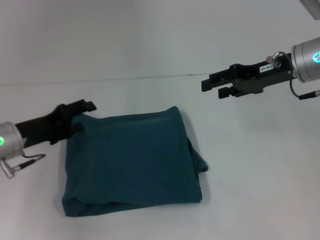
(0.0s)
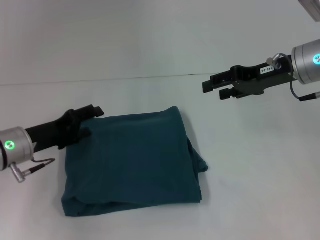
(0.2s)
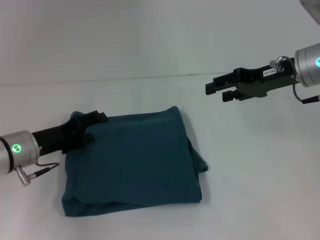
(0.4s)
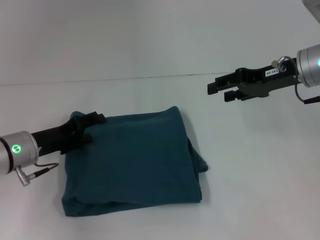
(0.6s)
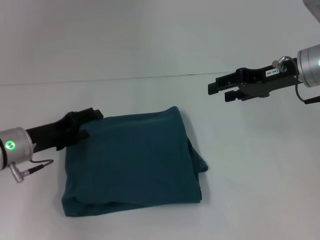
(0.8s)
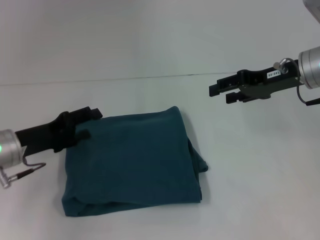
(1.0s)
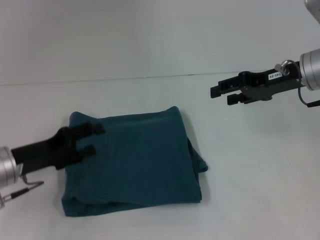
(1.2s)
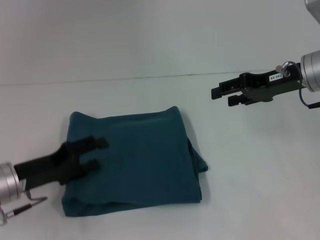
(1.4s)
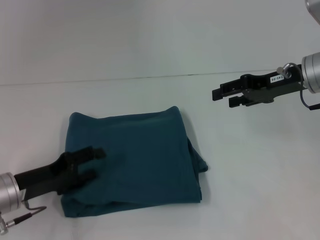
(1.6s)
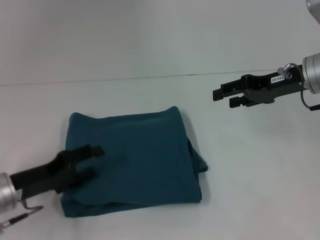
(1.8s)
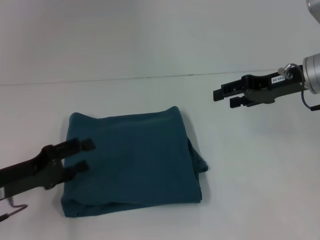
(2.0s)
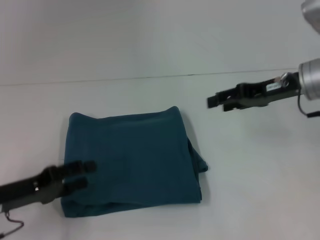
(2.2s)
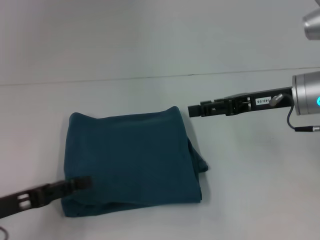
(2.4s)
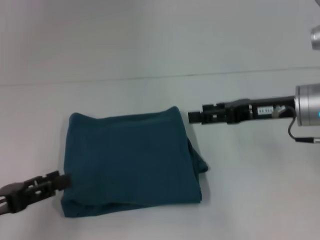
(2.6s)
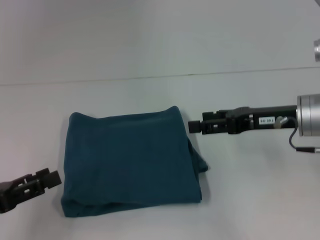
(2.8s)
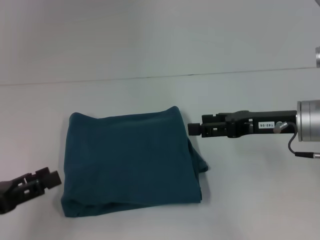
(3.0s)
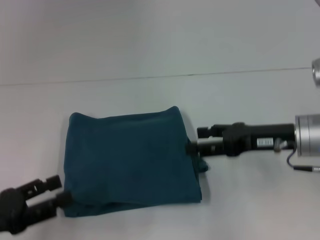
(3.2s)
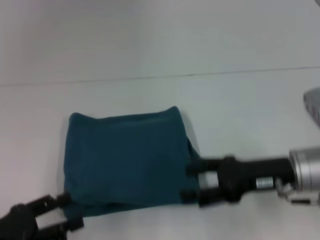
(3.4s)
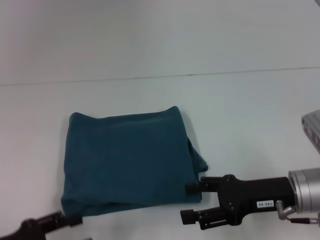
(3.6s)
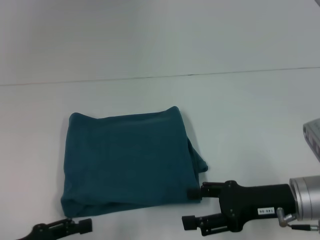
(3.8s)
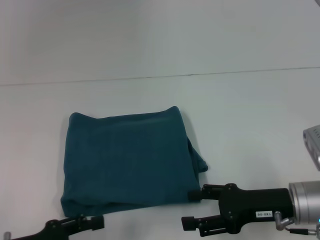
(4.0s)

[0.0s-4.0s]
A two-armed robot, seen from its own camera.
0.0s to 1.4s: The left gripper travels backward by approximately 5 cm.
1.4s to 2.6s: The right gripper is displaced backward by some 5 cm. The left gripper is displaced backward and to the left by roughly 10 cm.
2.6s to 4.0s: The right gripper is displaced backward and downward by roughly 15 cm; the left gripper ends up about 5 cm from where it was.

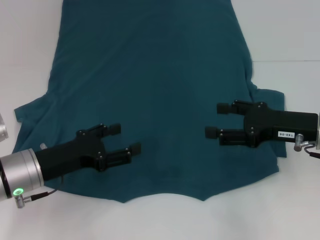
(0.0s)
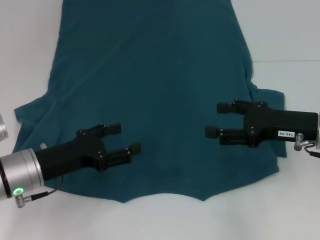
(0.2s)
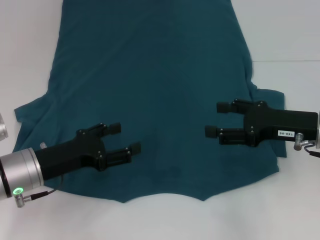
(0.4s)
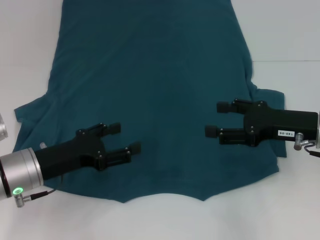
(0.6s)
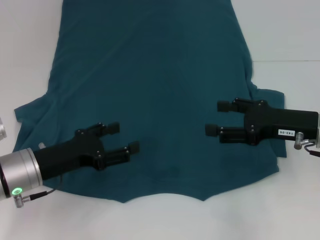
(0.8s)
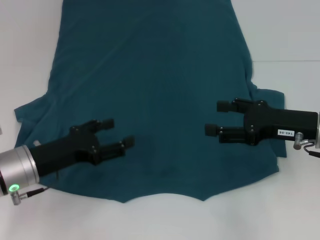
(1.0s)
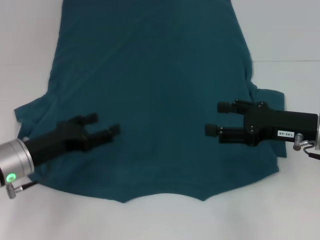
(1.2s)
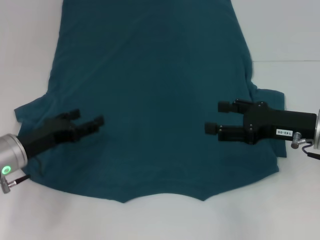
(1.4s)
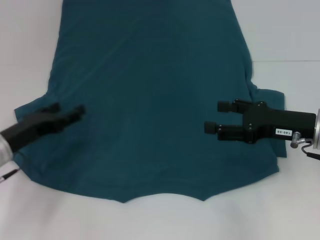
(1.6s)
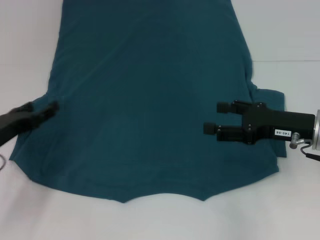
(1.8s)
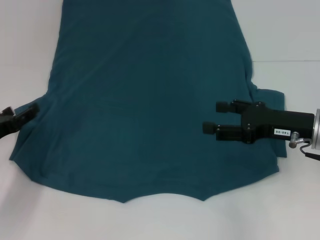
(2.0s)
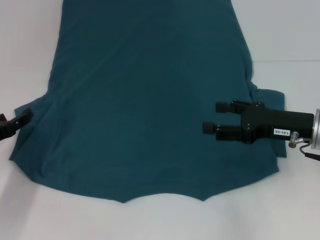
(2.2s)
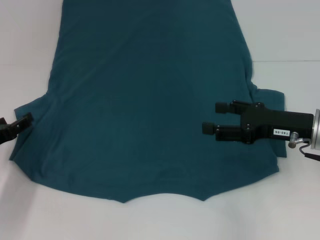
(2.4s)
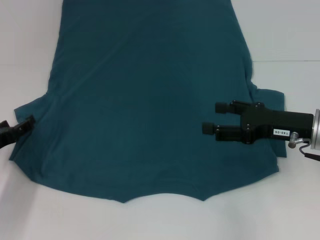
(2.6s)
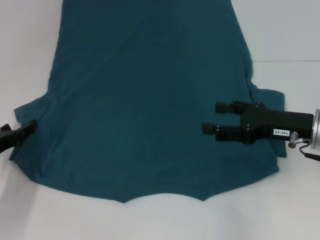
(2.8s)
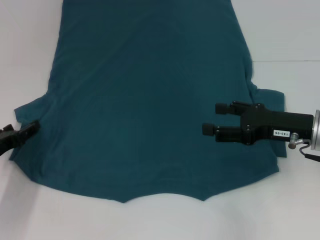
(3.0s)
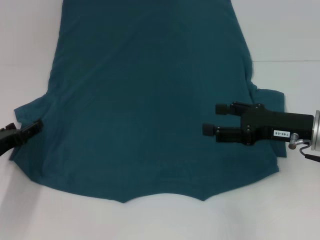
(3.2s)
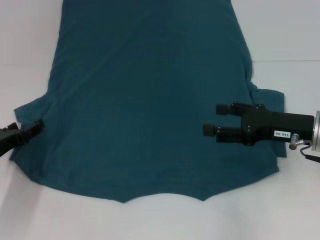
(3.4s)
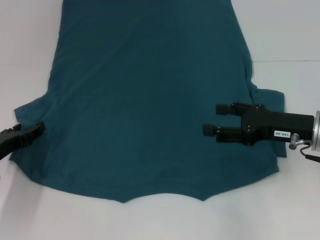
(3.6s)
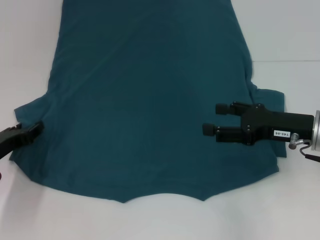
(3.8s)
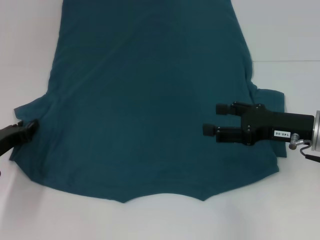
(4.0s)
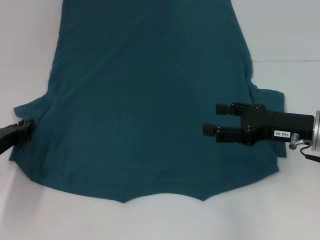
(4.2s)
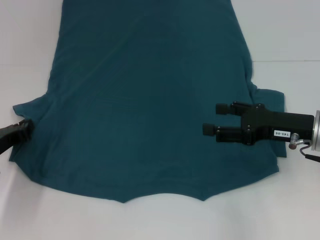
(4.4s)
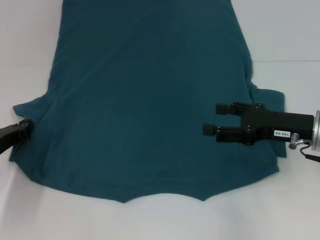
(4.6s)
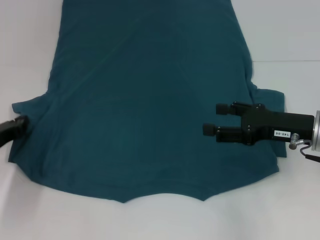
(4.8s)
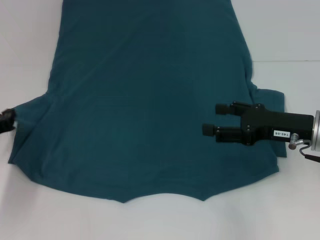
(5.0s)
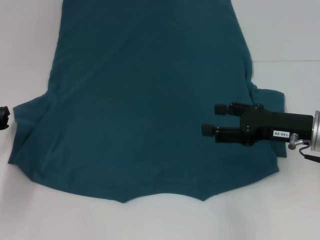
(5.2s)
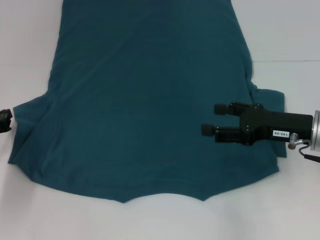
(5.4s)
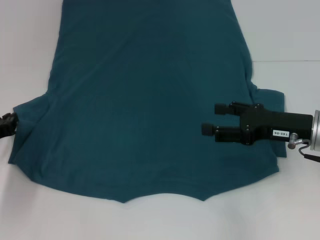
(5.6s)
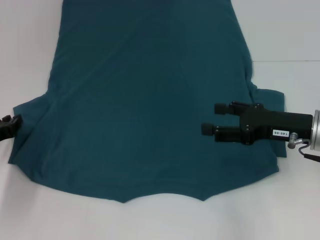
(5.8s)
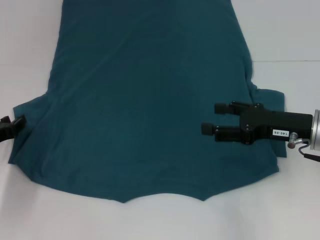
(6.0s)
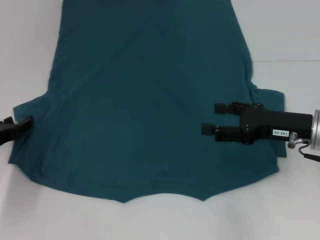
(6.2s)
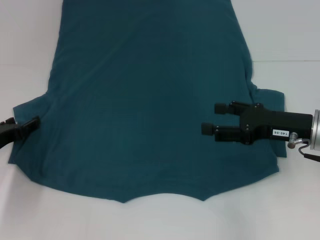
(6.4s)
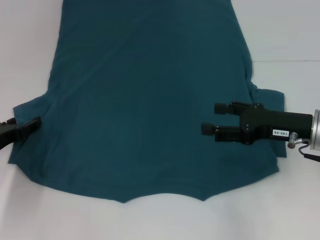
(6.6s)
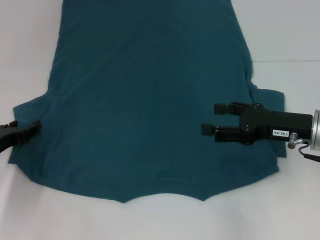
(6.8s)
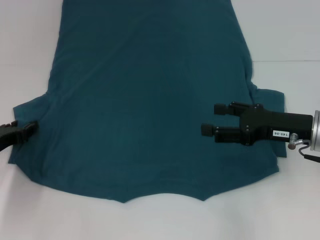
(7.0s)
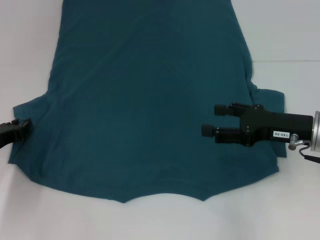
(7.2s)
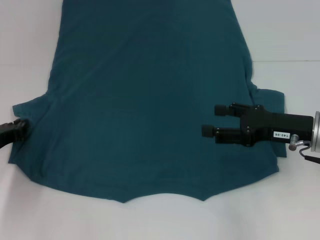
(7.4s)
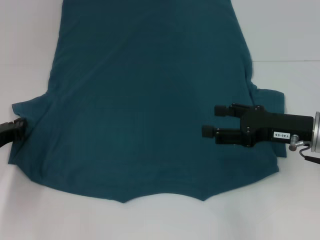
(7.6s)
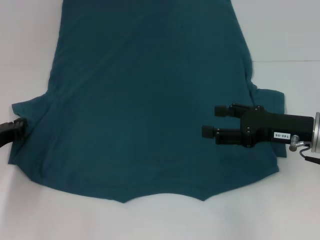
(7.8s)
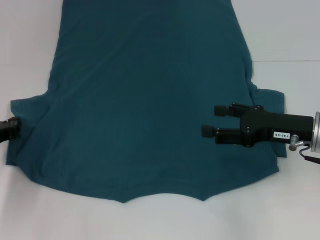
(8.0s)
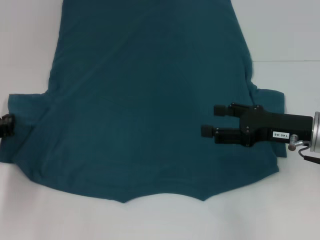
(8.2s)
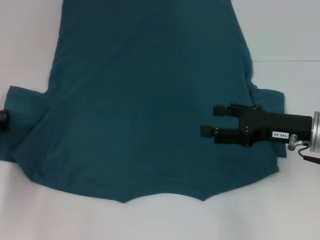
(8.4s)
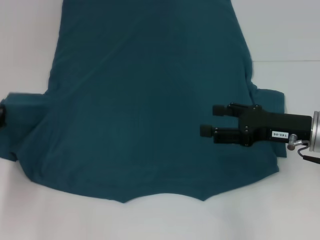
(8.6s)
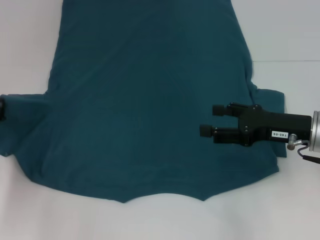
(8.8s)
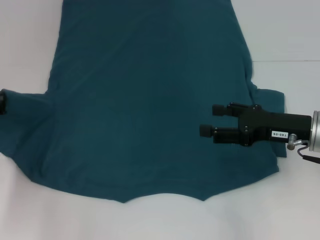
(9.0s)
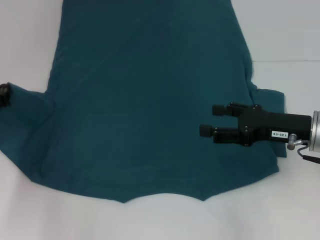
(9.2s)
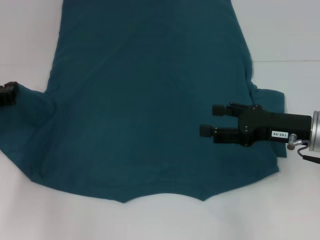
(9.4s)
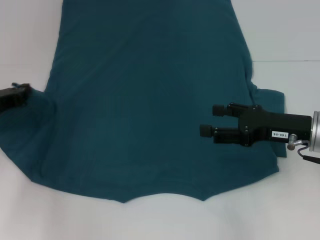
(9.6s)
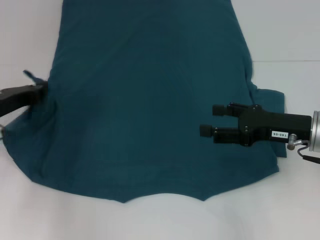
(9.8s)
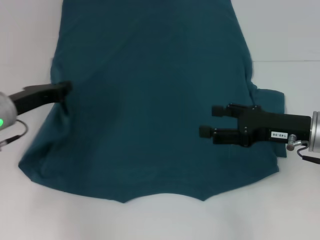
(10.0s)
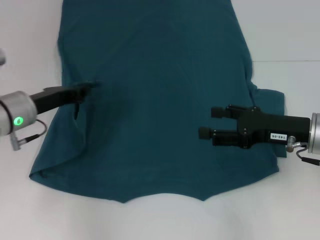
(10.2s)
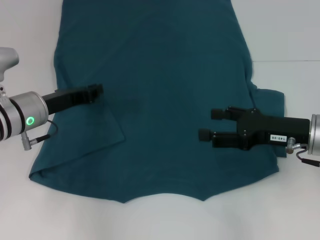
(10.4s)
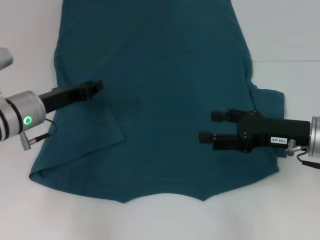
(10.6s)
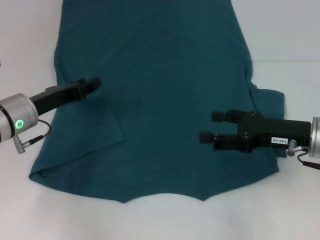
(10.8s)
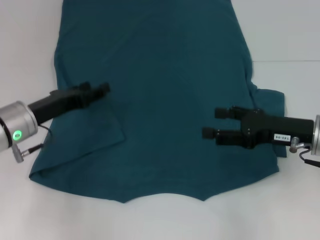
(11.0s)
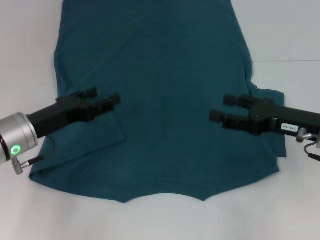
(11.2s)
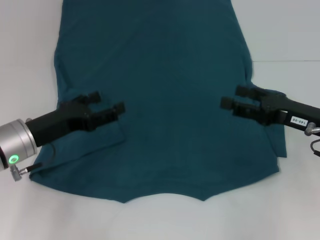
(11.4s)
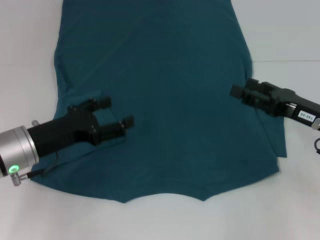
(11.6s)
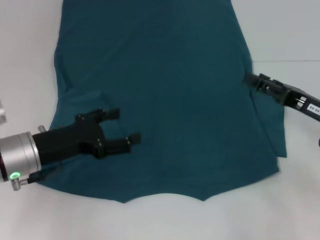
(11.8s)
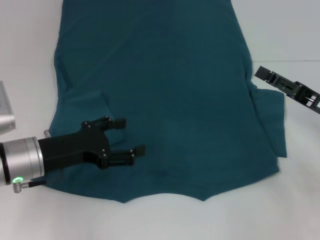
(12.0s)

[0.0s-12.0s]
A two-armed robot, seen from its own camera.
Step, 0.0s to 11.4s: Fold the bottom left sleeve with your left hand.
0.0s to 1.6s: The left gripper changes place by some 5 cm.
1.6s to 3.0s: The left gripper shifts by about 5 cm.
3.0s to 4.4s: The left gripper closes.
4.4s to 6.0s: The grippers make only small movements.
6.0s to 7.6s: The left gripper opens, then closes again.
7.6s to 9.0s: The grippers move only a little.
9.0s to 10.4s: The left gripper shifts about 10 cm to the right.
10.4s to 12.0s: The right gripper shifts roughly 5 cm to the right; the left gripper shifts roughly 10 cm backward, and opens up.

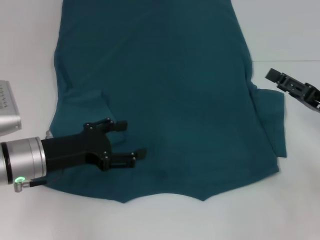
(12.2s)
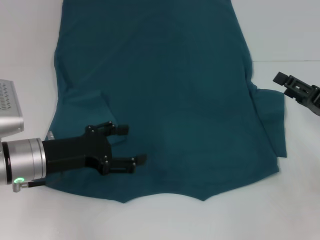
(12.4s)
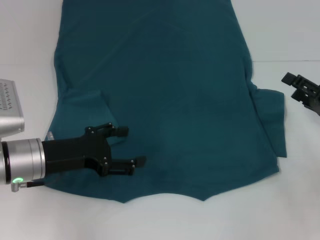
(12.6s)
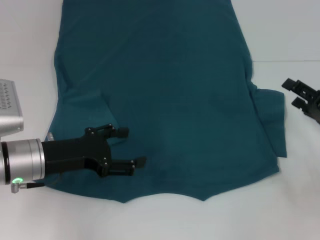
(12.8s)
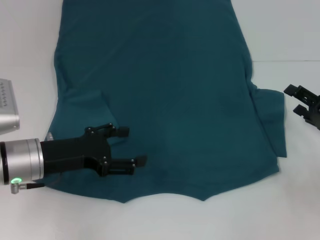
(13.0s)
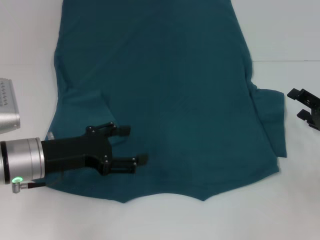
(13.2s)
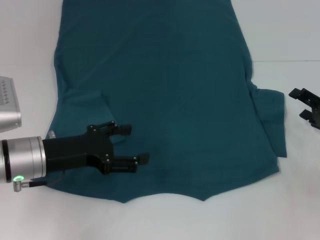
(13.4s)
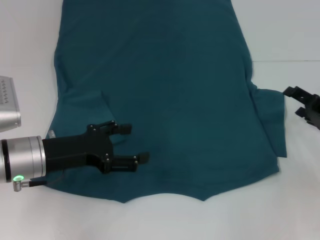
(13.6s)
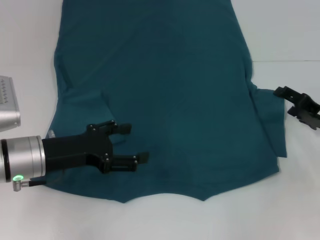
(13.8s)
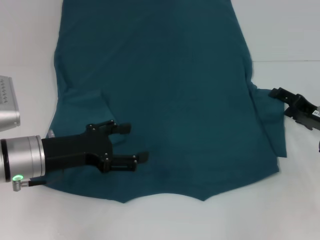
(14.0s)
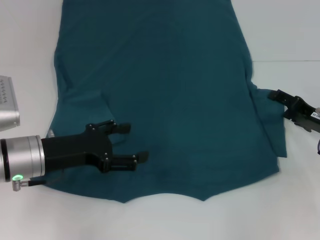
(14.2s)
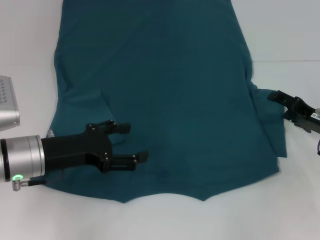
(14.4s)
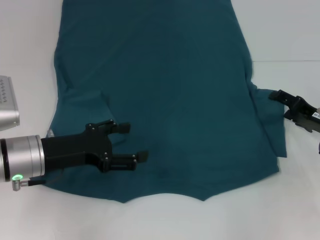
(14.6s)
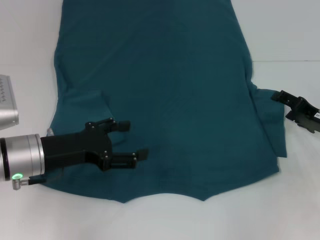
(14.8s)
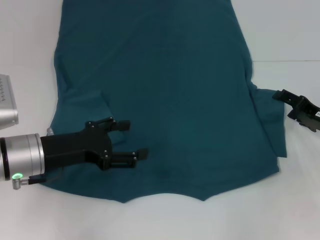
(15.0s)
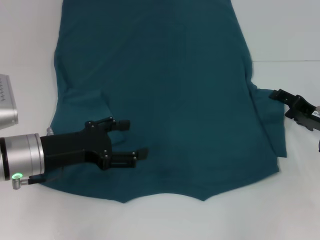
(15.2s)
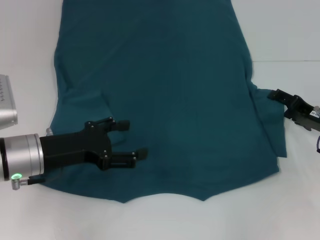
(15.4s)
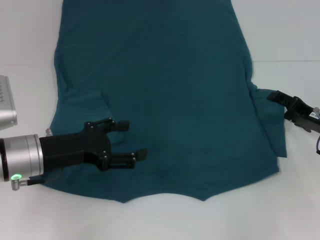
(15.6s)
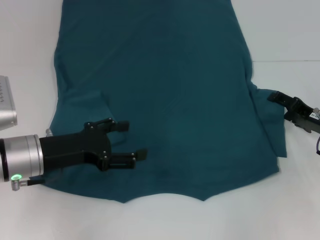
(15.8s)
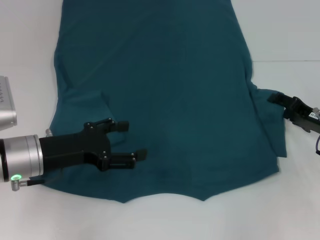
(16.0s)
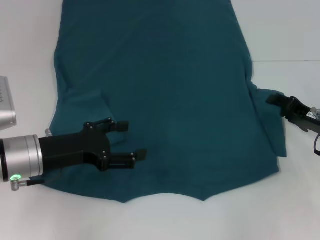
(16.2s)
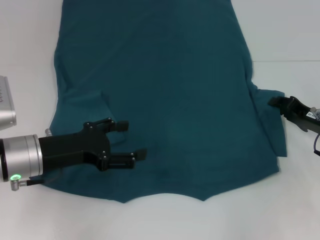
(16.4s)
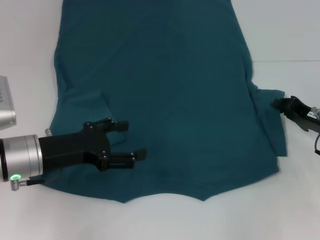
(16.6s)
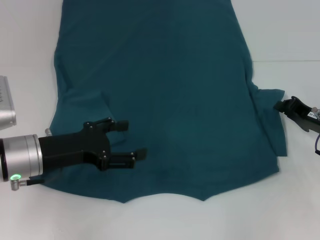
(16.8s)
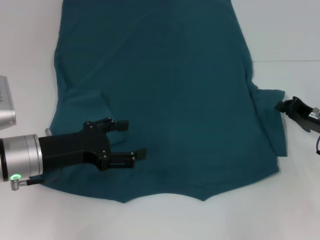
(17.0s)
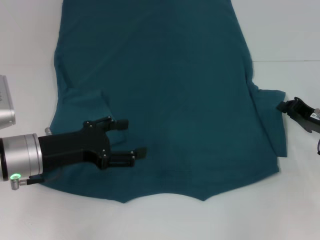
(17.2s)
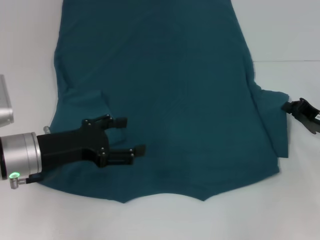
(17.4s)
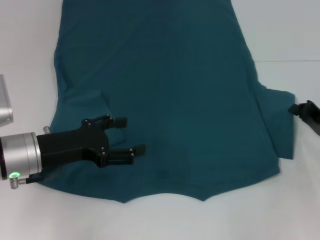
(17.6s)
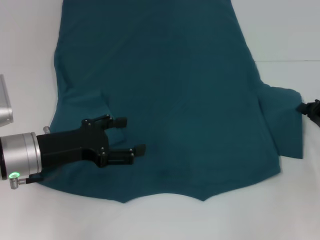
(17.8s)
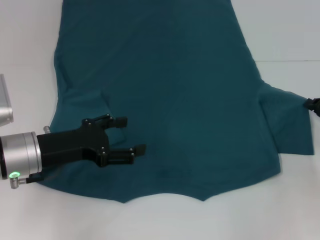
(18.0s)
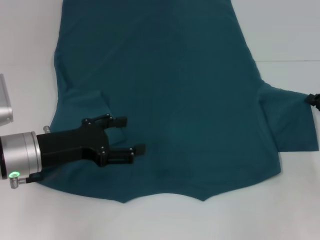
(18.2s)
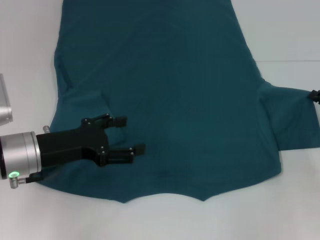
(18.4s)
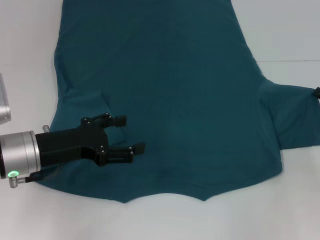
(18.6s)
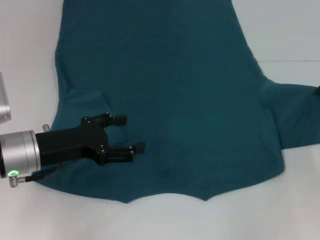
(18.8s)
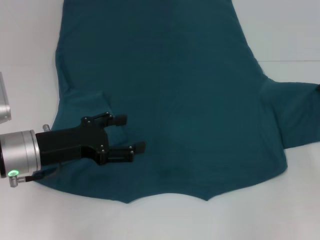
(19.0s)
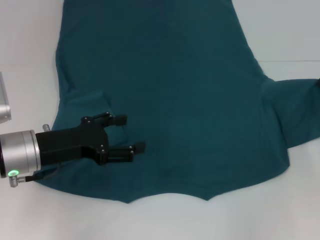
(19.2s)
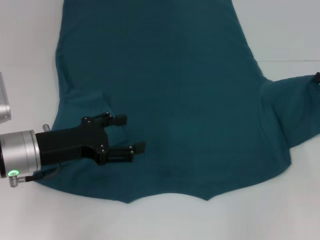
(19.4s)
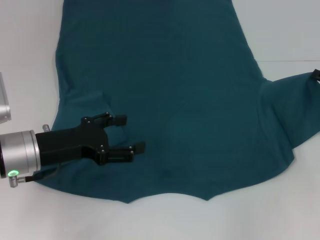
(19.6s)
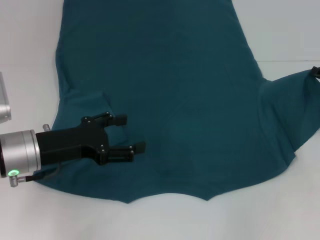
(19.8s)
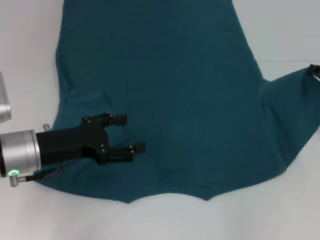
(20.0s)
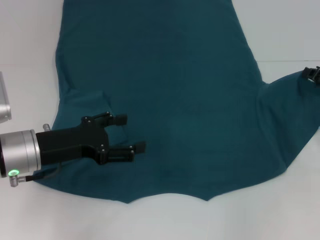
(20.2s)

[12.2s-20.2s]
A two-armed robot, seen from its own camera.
13.8s to 15.4s: Both grippers stay about where they are.
15.4s to 17.0s: The right gripper closes its fingers.
17.0s to 18.6s: The right gripper travels to the right by roughly 5 cm.
18.6s to 20.2s: The grippers stay close to where they were, moving slightly.
